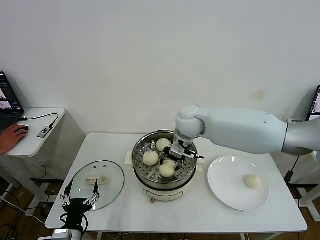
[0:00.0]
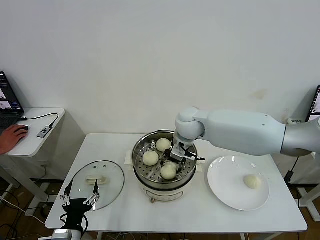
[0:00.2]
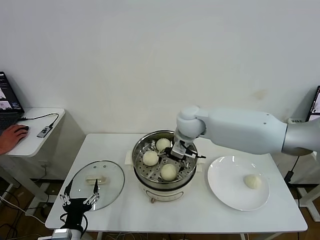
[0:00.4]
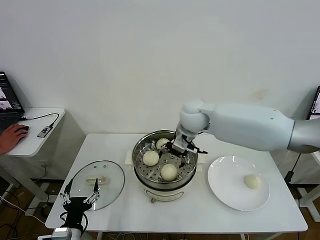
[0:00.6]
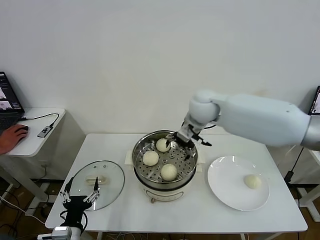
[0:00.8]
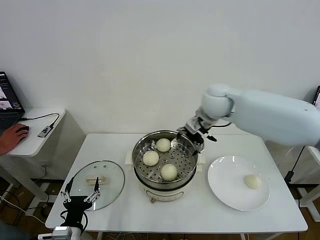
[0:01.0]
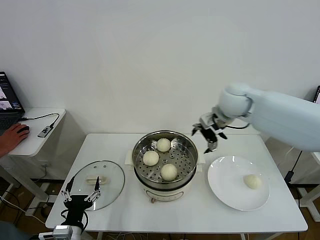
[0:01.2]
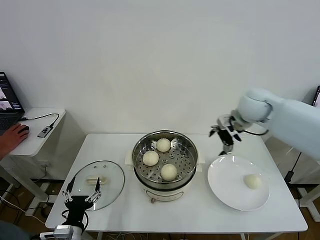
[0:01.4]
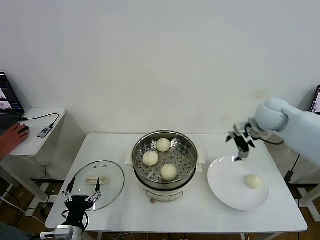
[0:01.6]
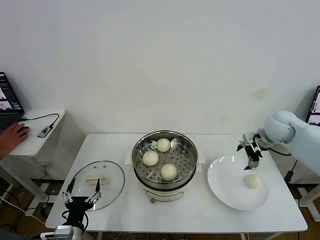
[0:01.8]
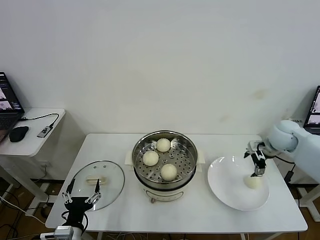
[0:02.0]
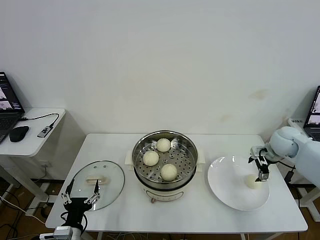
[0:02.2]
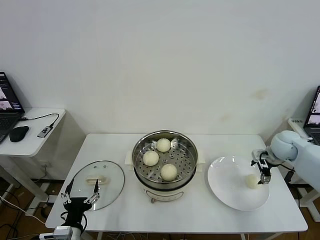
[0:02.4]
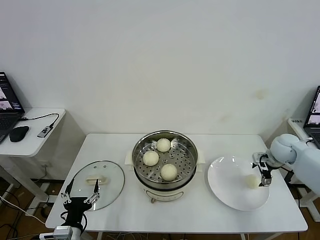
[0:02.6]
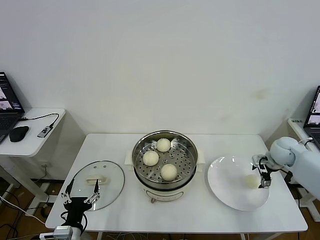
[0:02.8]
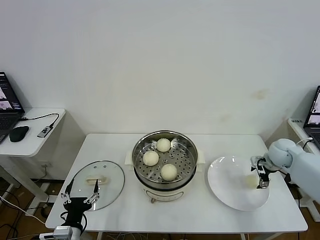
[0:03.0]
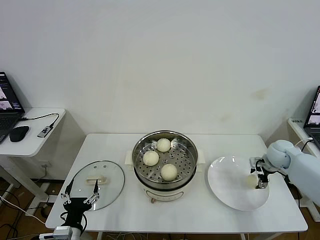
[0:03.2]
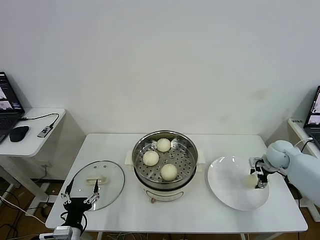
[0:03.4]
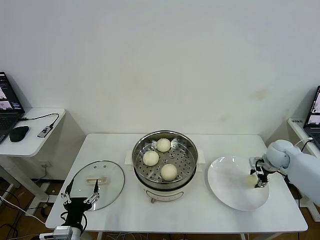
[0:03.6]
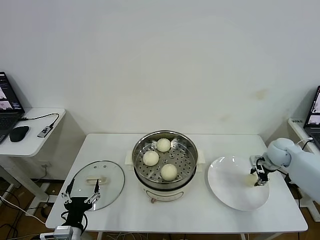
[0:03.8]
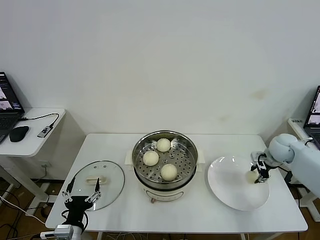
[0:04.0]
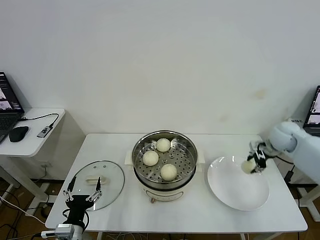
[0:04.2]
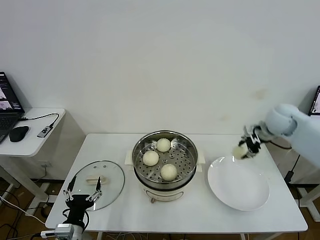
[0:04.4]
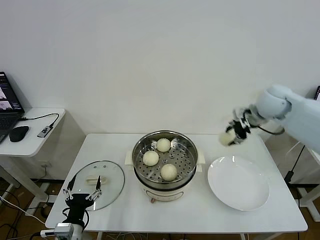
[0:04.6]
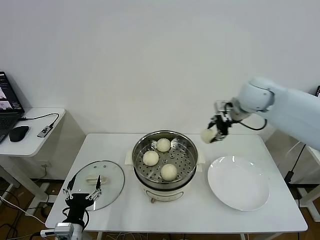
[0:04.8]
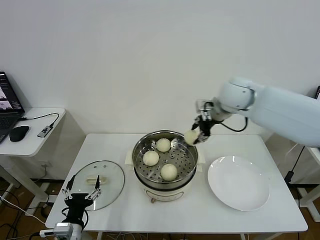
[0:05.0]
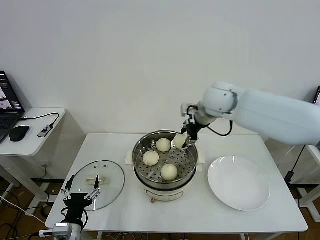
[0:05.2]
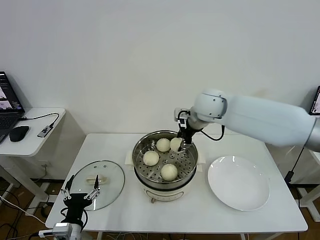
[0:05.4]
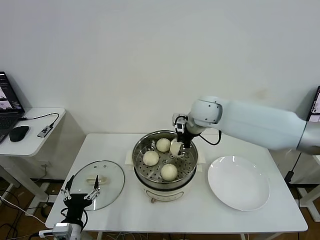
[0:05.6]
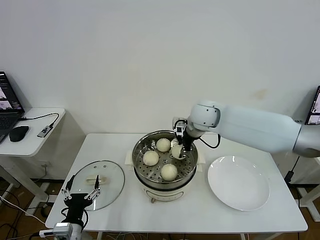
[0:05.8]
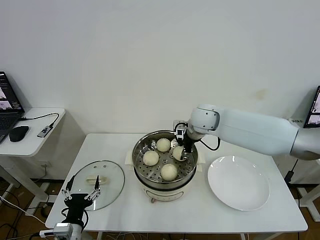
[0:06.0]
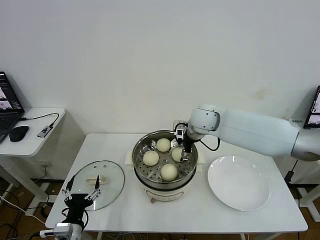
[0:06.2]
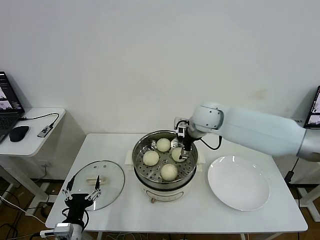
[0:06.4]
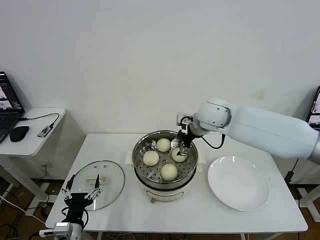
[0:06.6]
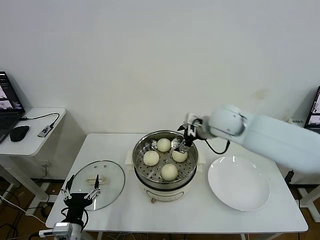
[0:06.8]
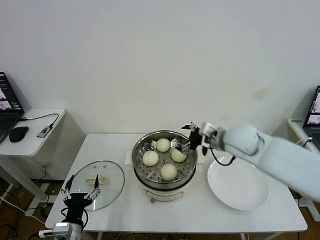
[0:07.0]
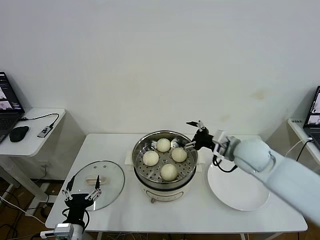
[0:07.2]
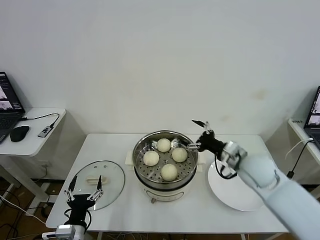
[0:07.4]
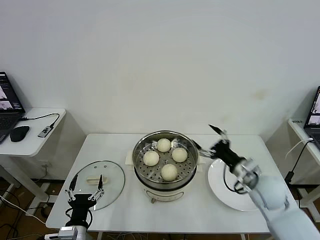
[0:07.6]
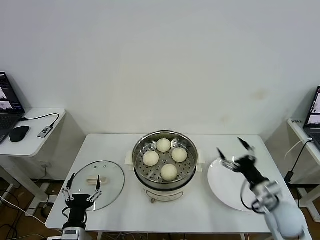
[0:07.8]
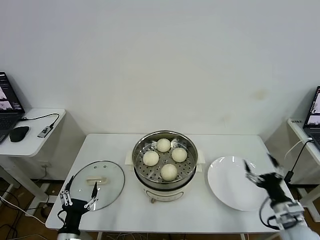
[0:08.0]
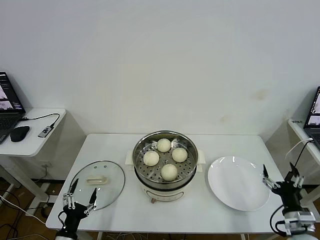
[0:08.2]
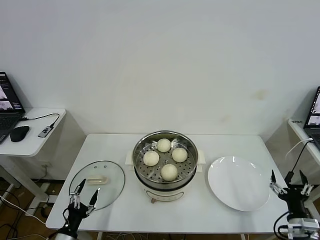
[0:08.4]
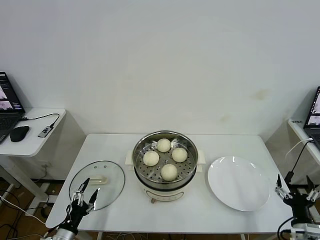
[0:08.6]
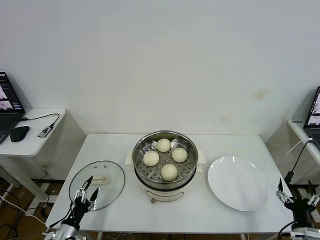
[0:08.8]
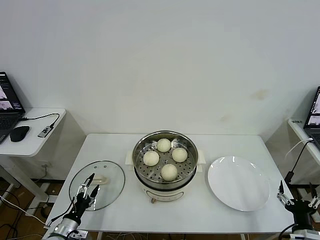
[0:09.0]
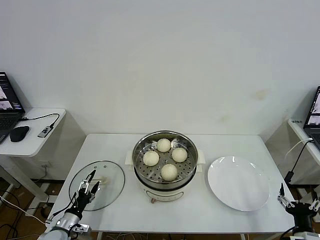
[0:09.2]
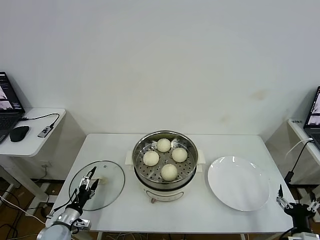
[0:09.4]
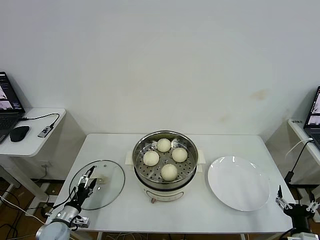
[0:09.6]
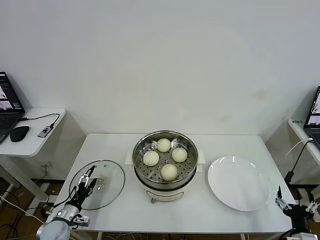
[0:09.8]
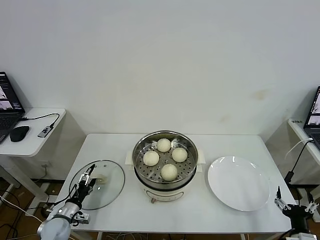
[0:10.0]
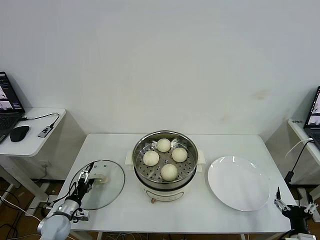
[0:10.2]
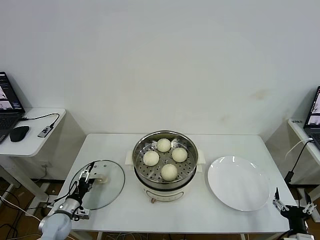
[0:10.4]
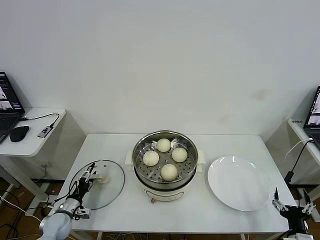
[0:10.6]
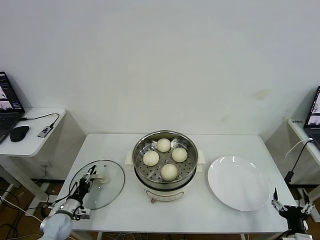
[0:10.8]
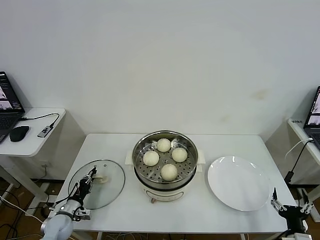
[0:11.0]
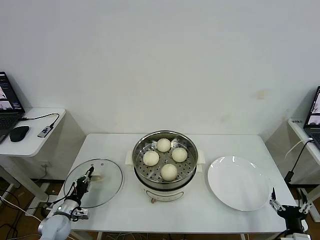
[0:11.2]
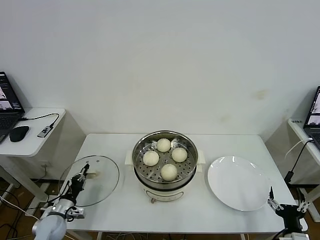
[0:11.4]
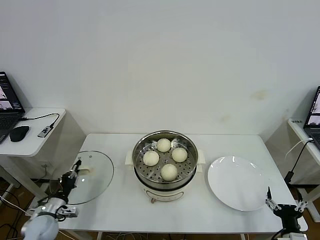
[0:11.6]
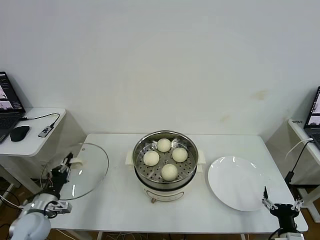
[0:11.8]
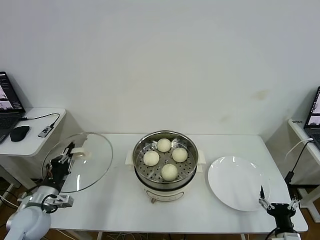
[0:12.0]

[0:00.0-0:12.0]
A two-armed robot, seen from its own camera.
Task of the whole recording: take steamed baozi put them in steamer then cover it.
Step, 0:00.6 to 0:03.4: Grasp the baozi in the plate with right gripper.
Step, 0:03.8 to 0:06.2: Place the baozi on the steamer with right gripper.
Step, 0:06.4 to 0:11.2: Grasp the pot lid with left gripper.
0:00.0 to 0:01.6: The right gripper heads to the right, covering some 25 cm, and opens.
0:01.6 to 0:03.0: The right gripper shifts about 15 cm downward and to the right.
0:03.0 to 0:04.4: The right gripper goes roughly 15 cm upward and to the left, and closes.
0:04.4 to 0:06.0: The right gripper moves to the left, approximately 25 cm.
0:06.0 to 0:07.6: The right gripper heads backward, to the right and downward, covering approximately 30 cm, and opens up.
0:07.6 to 0:09.0: The right gripper shifts roughly 25 cm backward, downward and to the right; the left gripper heads to the left and downward, covering some 15 cm.
0:09.0 to 0:10.4: The left gripper moves forward, about 10 cm.
0:10.4 to 0:12.0: The left gripper travels upward by roughly 15 cm, and closes.

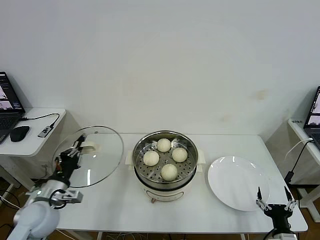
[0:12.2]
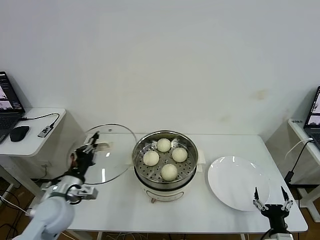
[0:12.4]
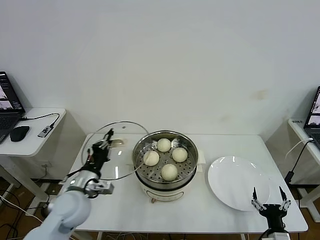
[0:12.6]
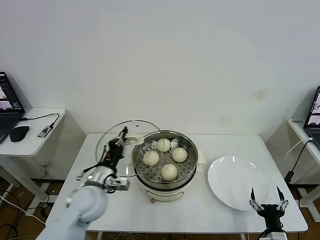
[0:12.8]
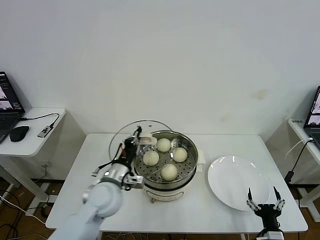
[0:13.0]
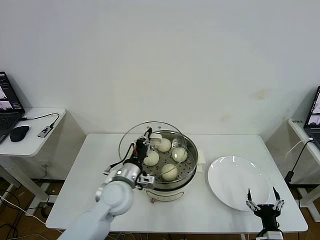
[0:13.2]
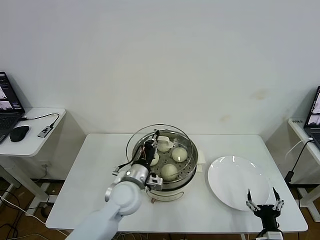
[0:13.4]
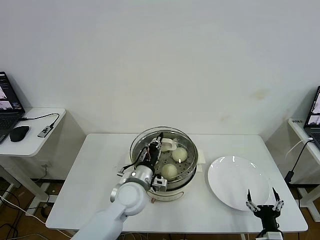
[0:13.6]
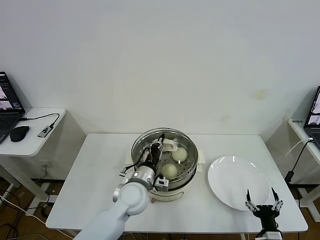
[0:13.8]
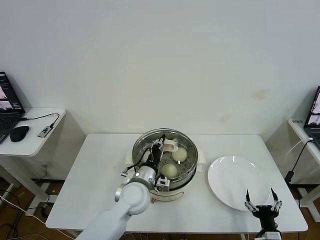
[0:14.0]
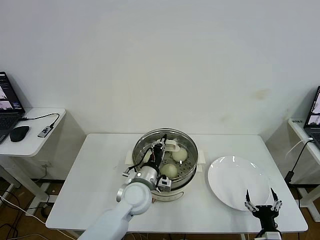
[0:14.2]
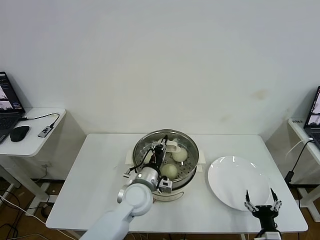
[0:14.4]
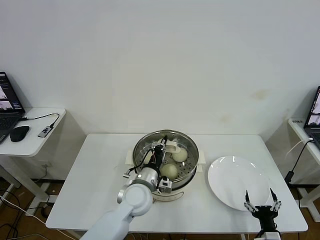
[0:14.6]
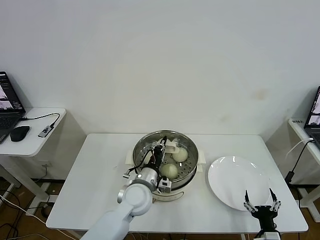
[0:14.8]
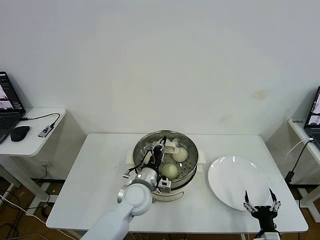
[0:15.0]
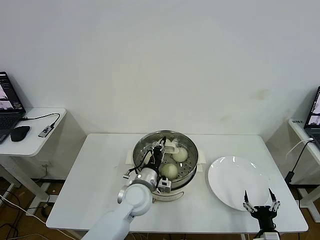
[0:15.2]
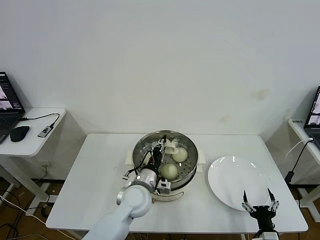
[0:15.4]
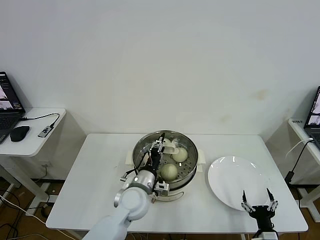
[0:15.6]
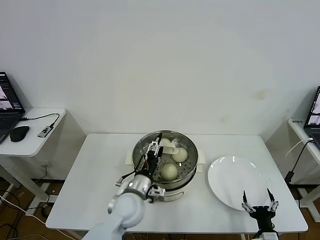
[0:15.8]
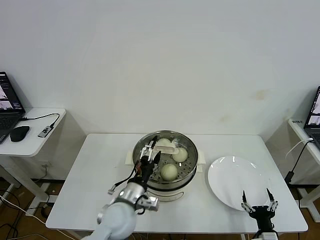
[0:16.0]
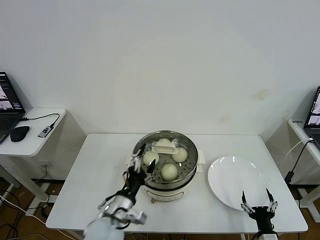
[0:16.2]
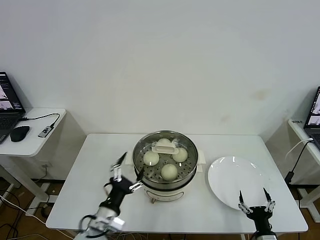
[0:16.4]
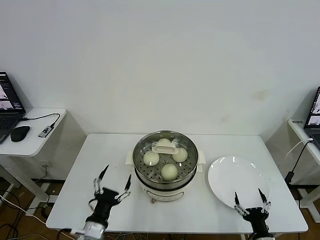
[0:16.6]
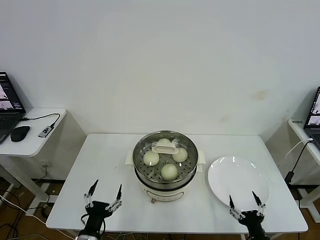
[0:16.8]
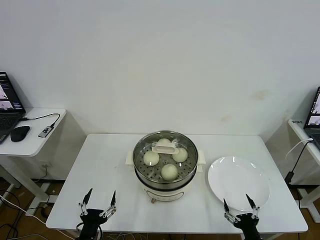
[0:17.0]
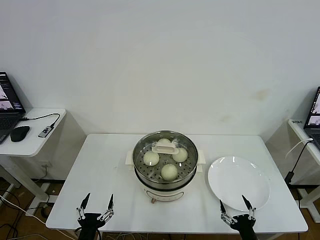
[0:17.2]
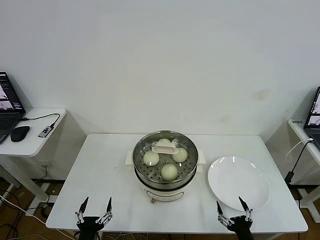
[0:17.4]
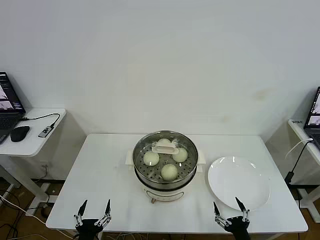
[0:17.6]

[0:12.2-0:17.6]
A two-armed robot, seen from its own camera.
Task of the whole recording: take steamed baozi put them in steamer then cover it.
Step, 0:12.2 to 0:15.6: Place the pot lid on the steamer with left gripper.
0:12.2 to 0:13.6: The left gripper is displaced to the right by approximately 25 cm.
0:13.6 to 0:15.0: The grippers make only small movements.
0:15.0 to 0:16.2: The left gripper goes approximately 10 cm backward and to the left, and opens.
0:16.2 to 0:17.6: The right gripper goes roughly 5 cm to the left. Meanwhile the left gripper moves backward, downward and to the left, some 20 cm.
